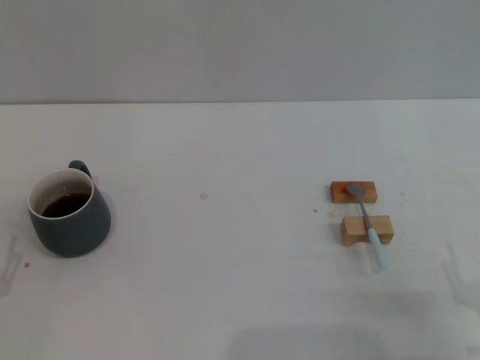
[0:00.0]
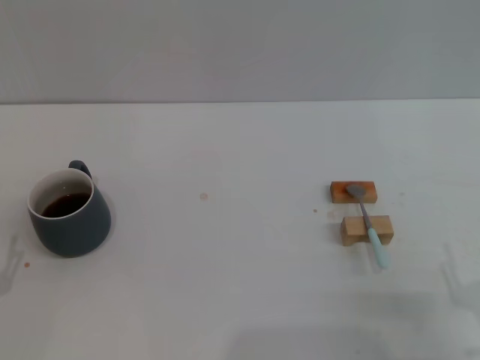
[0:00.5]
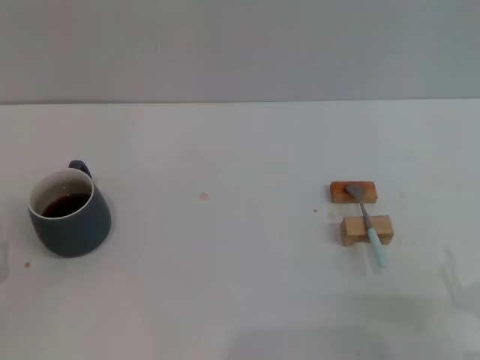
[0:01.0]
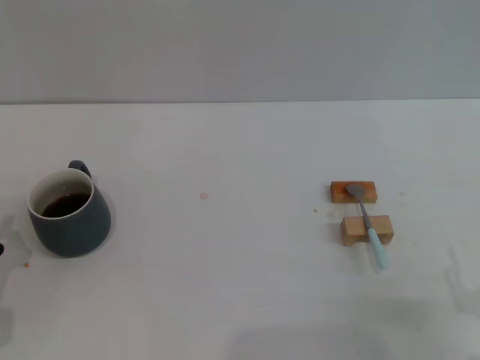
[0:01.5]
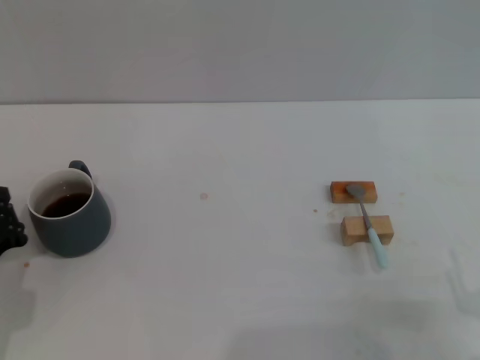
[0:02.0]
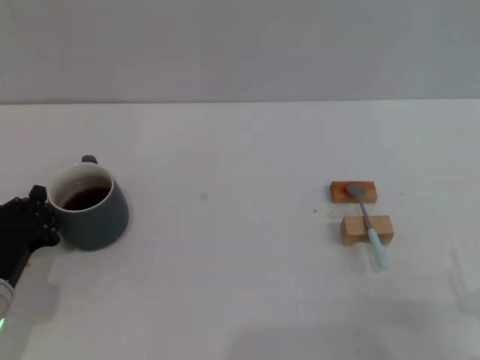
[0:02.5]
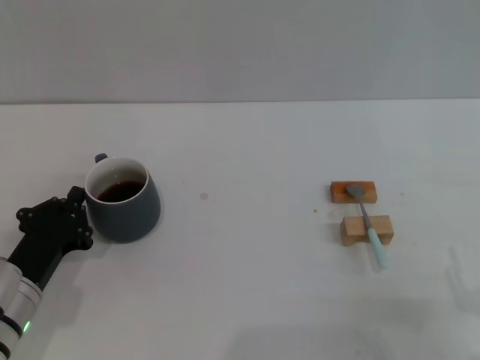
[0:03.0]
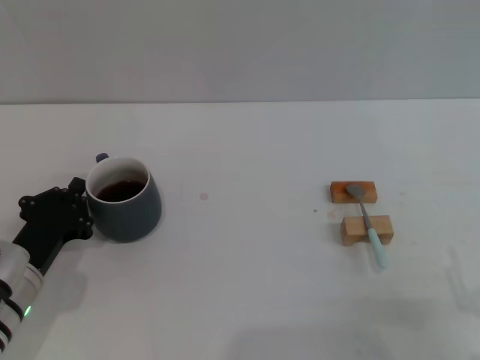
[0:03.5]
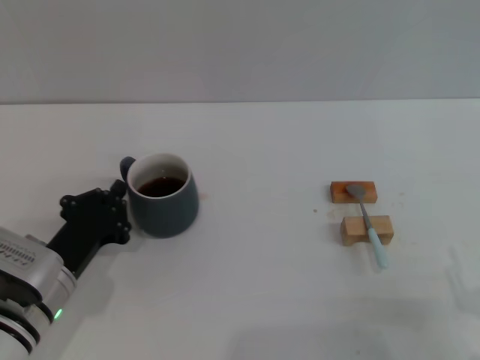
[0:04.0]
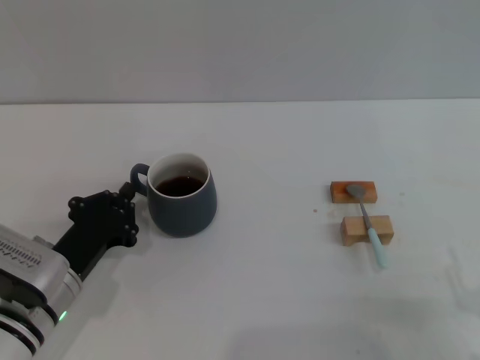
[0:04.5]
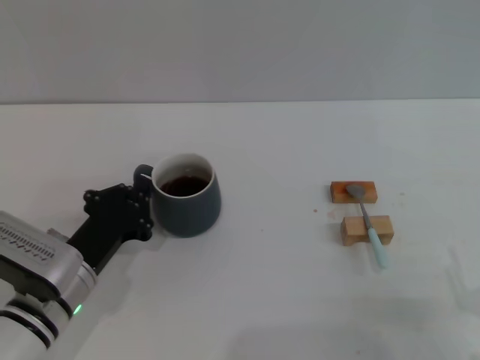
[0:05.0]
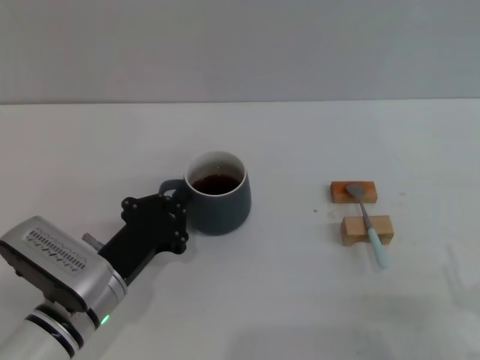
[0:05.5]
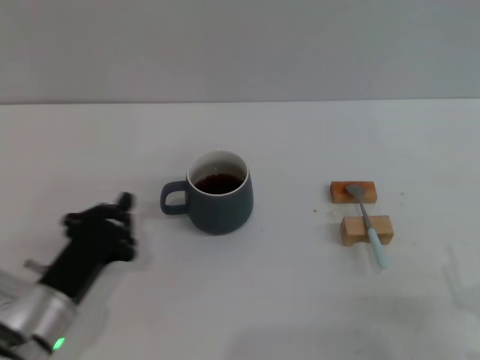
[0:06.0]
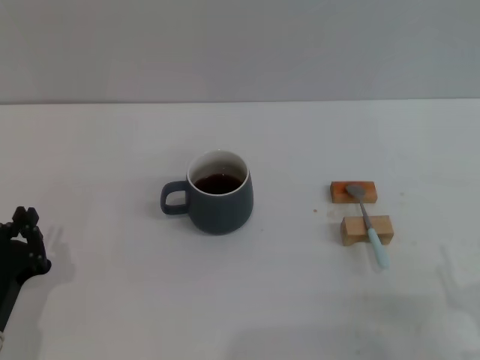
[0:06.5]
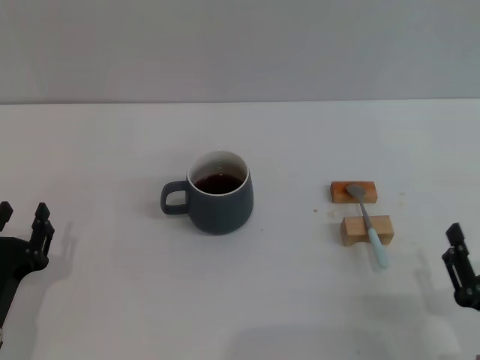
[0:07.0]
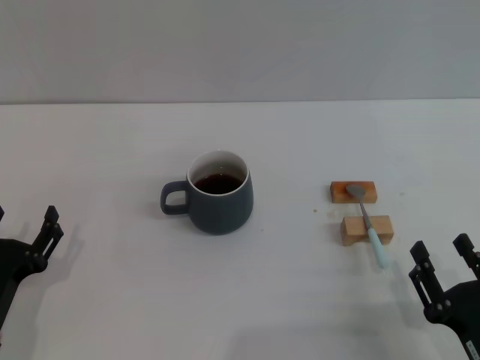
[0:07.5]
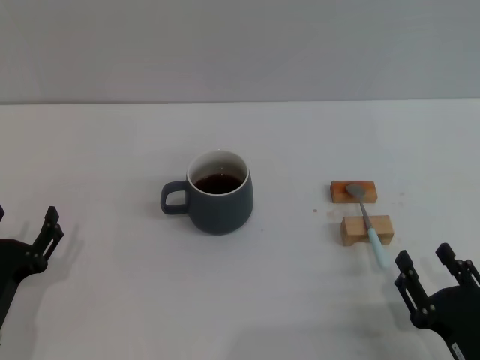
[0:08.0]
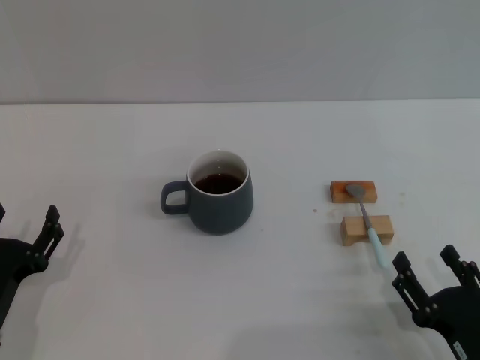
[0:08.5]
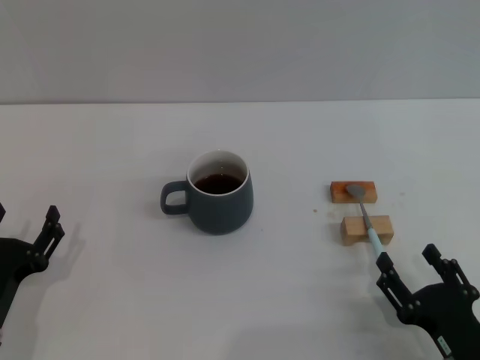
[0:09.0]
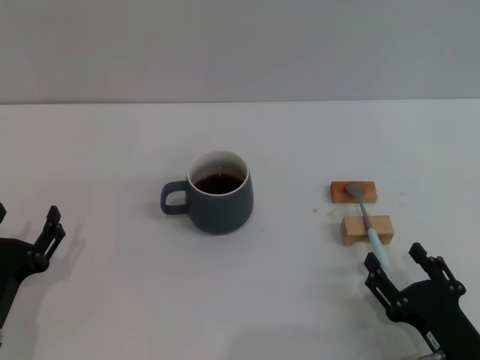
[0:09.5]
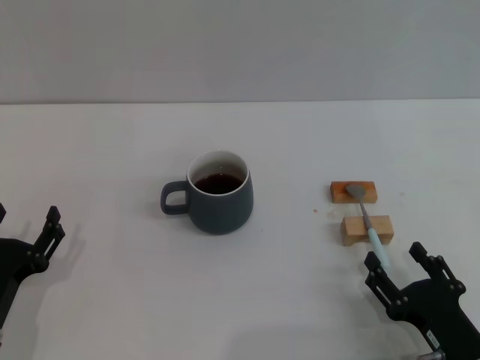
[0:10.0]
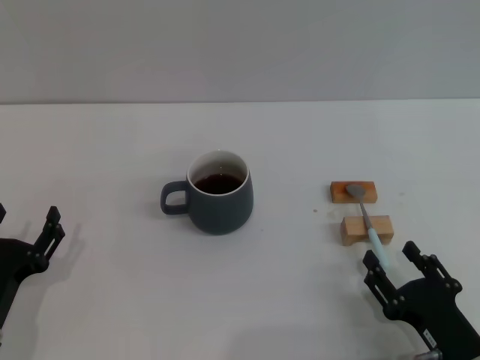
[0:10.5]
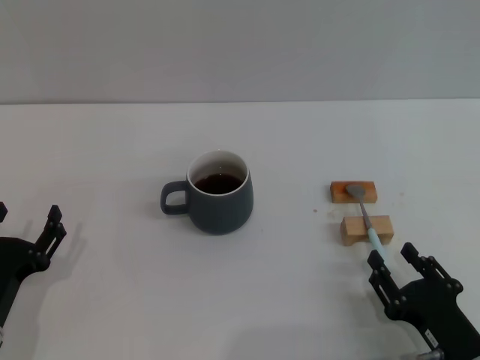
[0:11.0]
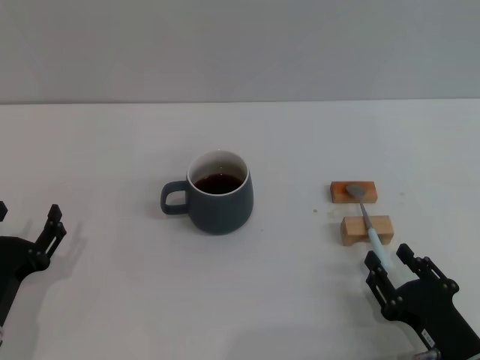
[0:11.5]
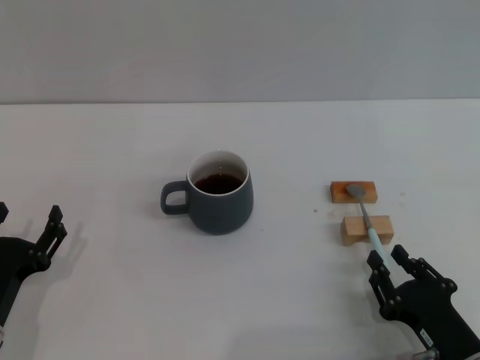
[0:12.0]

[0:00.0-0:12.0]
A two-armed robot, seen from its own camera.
Task of the whole recording: Move the grey cup to the center, lift the blue spoon, stir it three times in the cup, and put the spoon into the cup.
Step, 0:00.0 to 0:06.0: Move the cup with coffee to the center of view with the left gripper.
0:00.0 to 0:02.0: The left gripper heads forward, covering approximately 5 cm, and closes.
0:02.0 to 0:04.0: The left gripper travels to the right by about 5 cm.
0:04.0 to 0:06.0: The grippers make only small movements.
0:06.0 to 0:08.0: The left gripper shifts some 5 cm to the left, and opens, while the right gripper ends up about 5 cm from where it was.
0:08.0 to 0:10.0: The grippers make only small movements.
0:10.0 to 0:12.0: The right gripper closes its fingers.

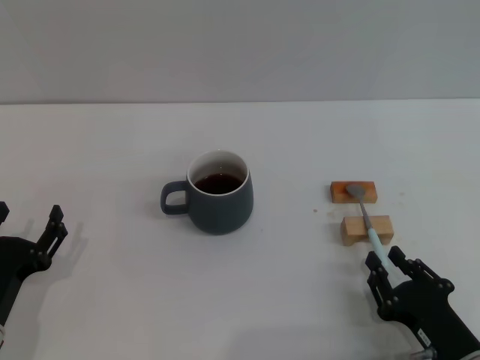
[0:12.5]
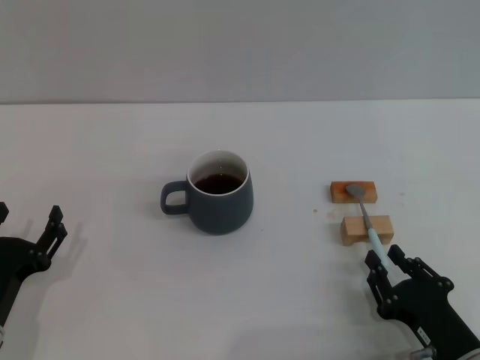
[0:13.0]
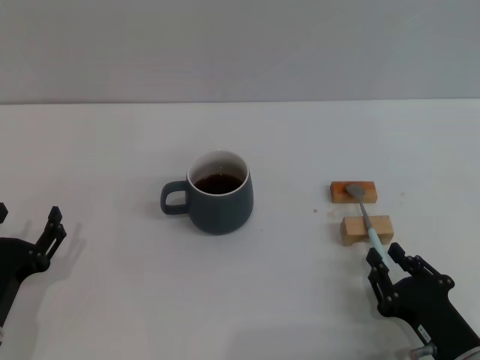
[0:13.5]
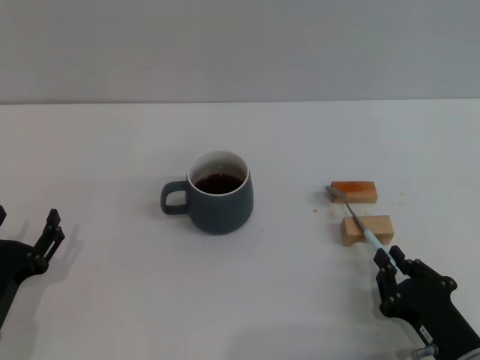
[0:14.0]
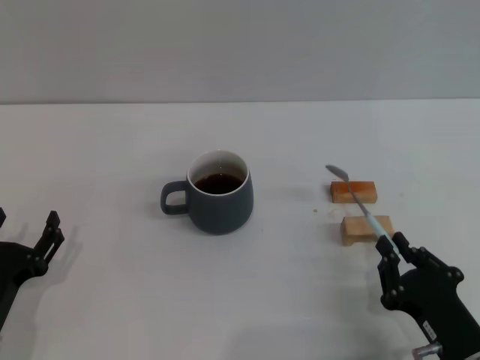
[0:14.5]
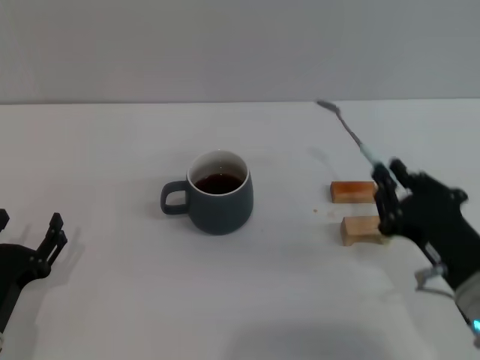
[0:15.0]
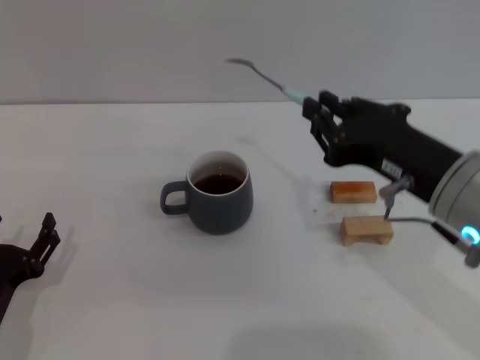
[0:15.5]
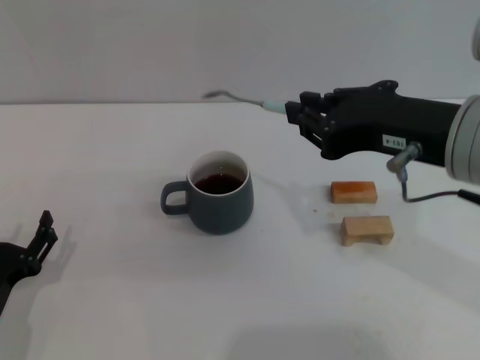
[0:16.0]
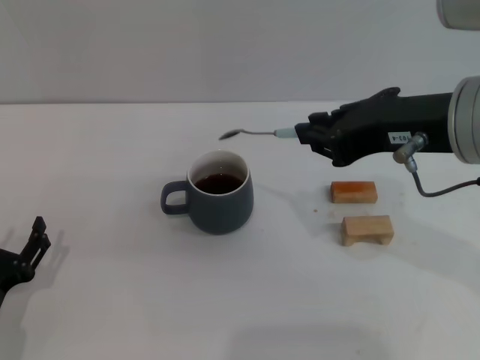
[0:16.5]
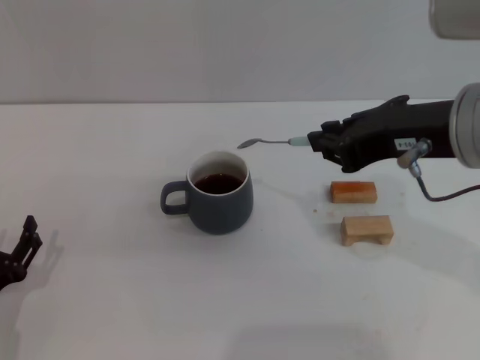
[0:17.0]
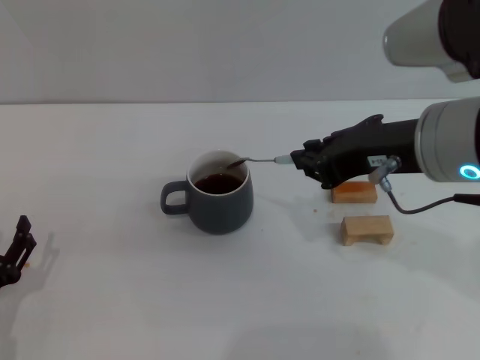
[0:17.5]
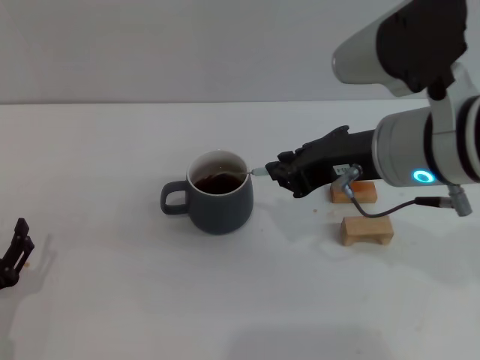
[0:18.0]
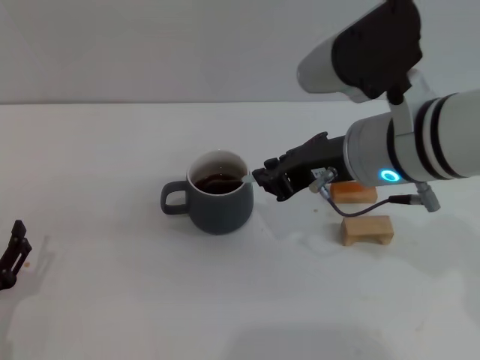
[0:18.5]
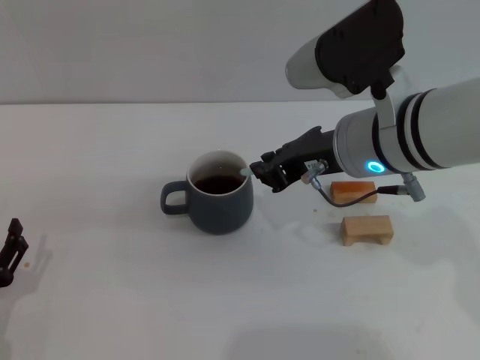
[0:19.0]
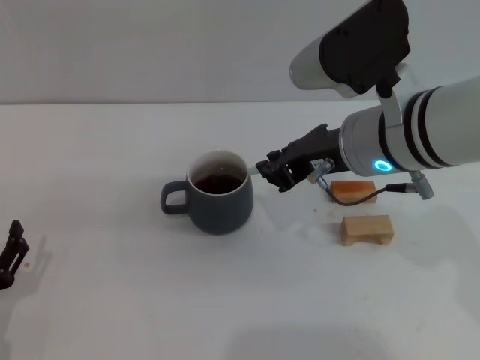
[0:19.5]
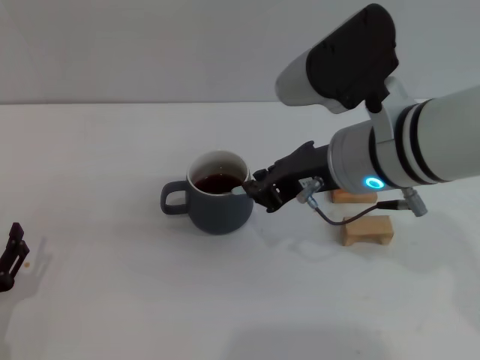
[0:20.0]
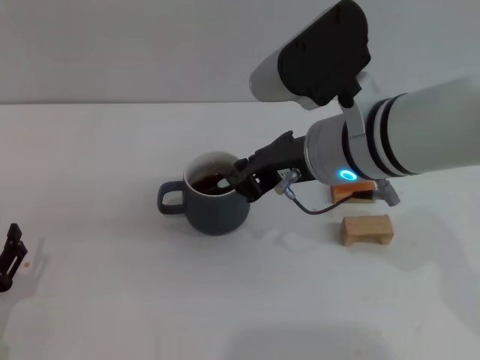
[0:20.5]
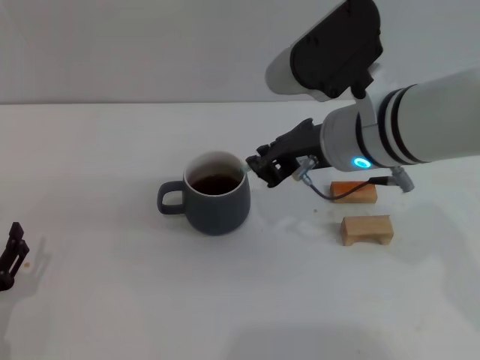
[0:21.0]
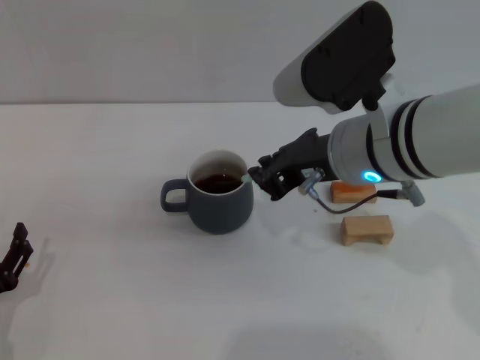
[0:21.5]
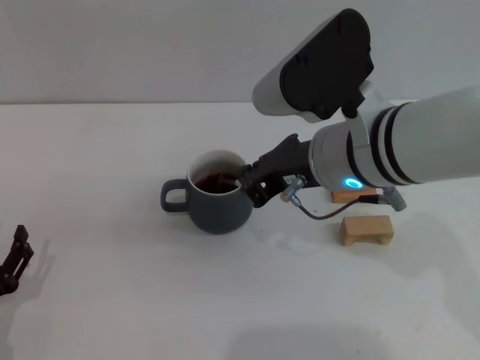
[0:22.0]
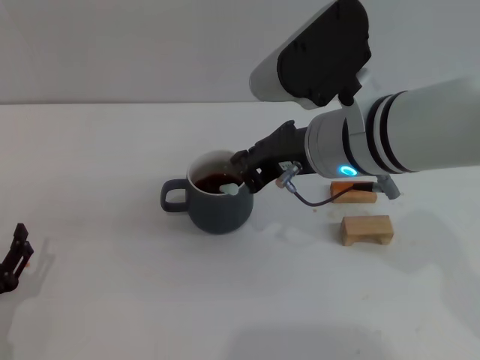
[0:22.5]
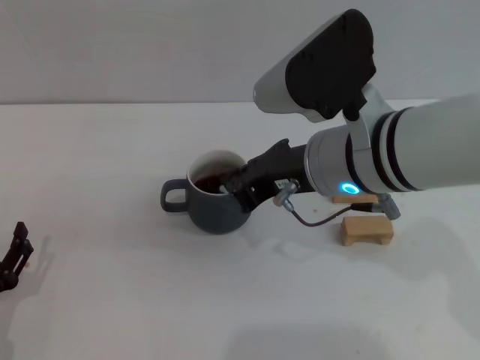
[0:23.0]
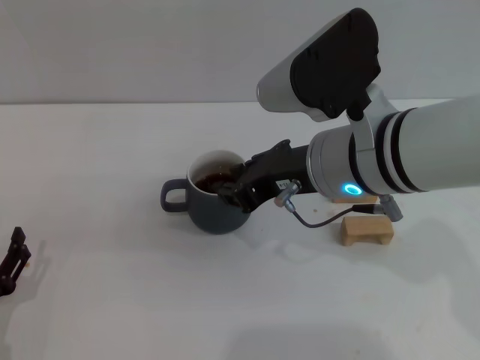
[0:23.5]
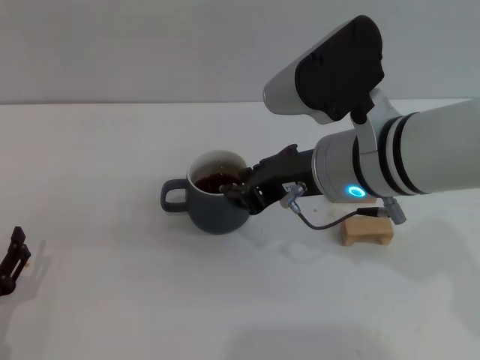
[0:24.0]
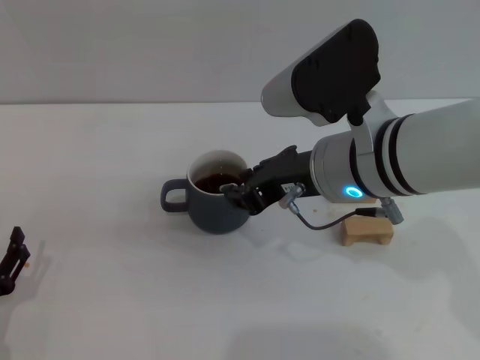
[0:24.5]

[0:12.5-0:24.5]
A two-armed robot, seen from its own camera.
Task of the whole recording: Move the grey cup to the center, lift the blue spoon, stir it three times in the cup, and put the spoon into the cup.
0:12.5 to 0:14.5: The grippers stay close to where they were, moving slightly.
0:14.5 to 0:16.5: The right gripper goes about 30 cm upward and forward.
0:16.5 to 0:18.5: The right gripper travels downward by some 5 cm.
0:18.5 to 0:22.5: The grippers move only a little.
0:22.5 to 0:24.5: The right gripper opens up.

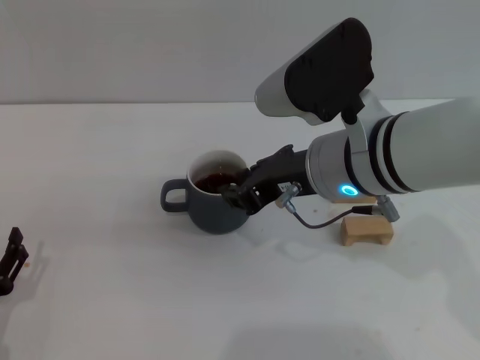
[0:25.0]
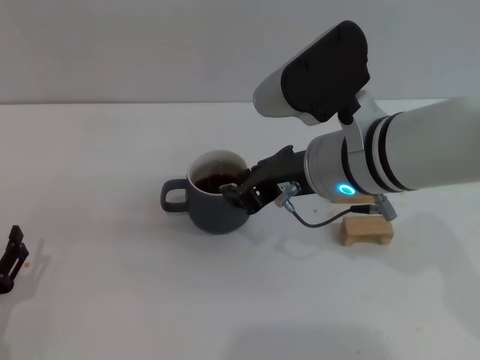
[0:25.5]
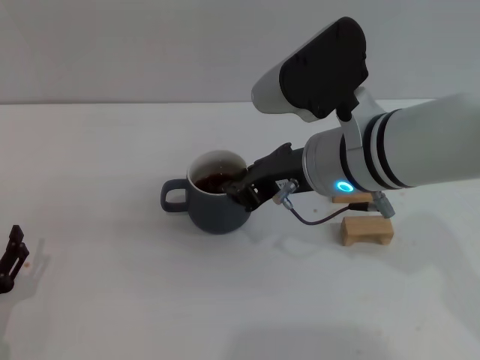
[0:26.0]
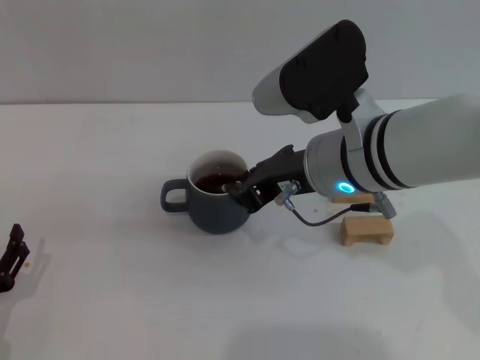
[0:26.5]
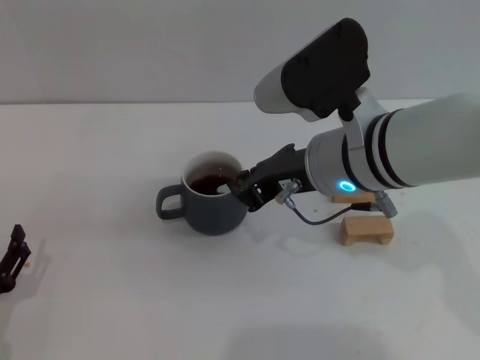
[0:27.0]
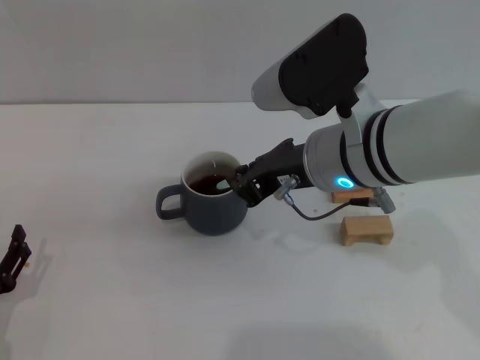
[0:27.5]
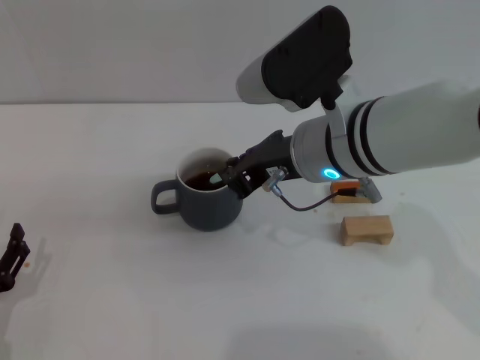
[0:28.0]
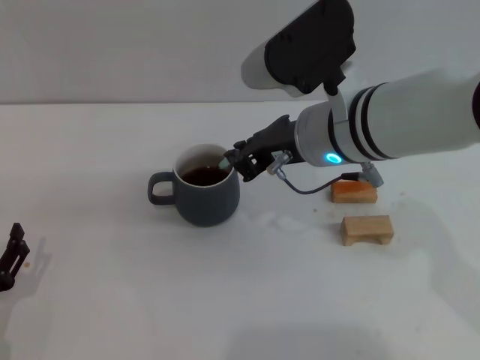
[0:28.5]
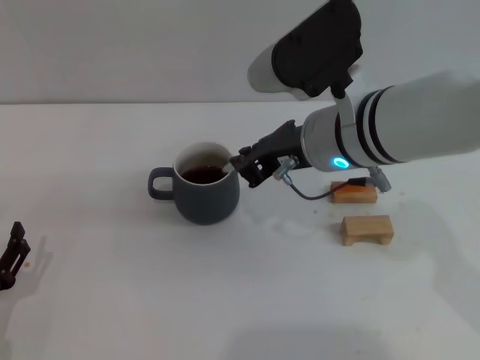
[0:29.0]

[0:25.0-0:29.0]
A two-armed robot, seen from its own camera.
Task of the whole recording: Move the grey cup to the center, lift the blue spoon, stir it three times in the cup, and put the spoon into the cup.
0:25.0 to 0:27.0: Both grippers stay put.
0:27.0 to 0:29.0: The grippers make only small movements.
